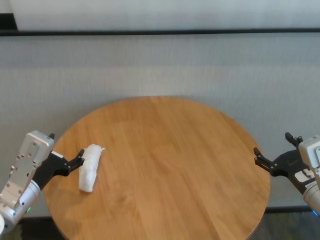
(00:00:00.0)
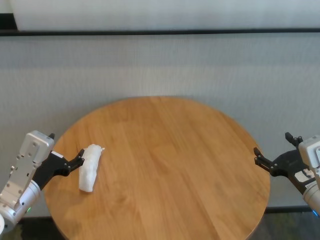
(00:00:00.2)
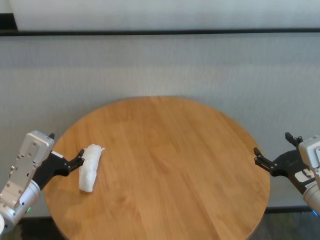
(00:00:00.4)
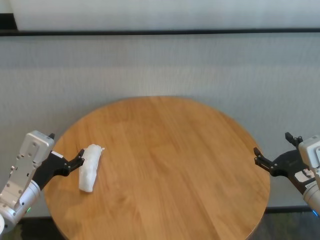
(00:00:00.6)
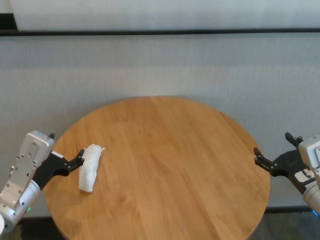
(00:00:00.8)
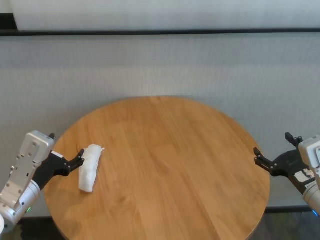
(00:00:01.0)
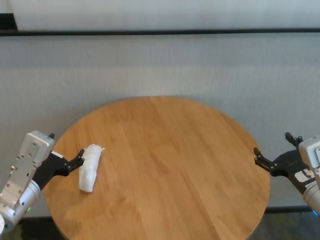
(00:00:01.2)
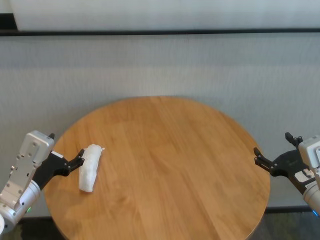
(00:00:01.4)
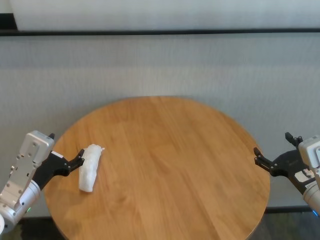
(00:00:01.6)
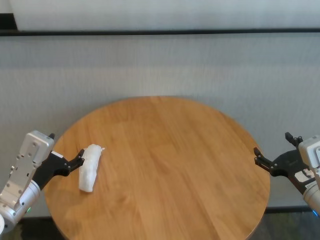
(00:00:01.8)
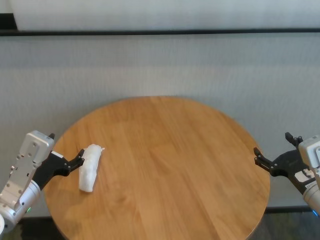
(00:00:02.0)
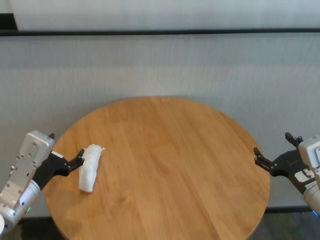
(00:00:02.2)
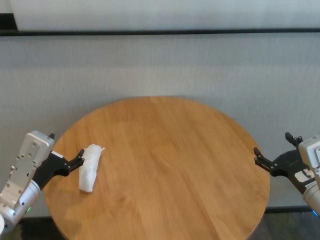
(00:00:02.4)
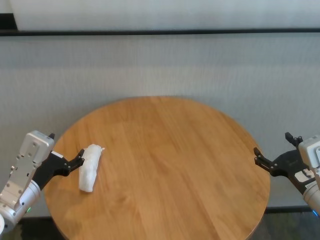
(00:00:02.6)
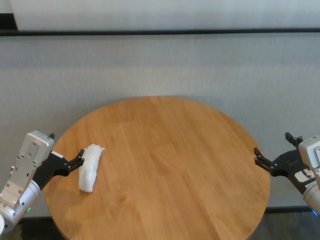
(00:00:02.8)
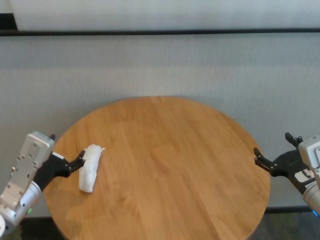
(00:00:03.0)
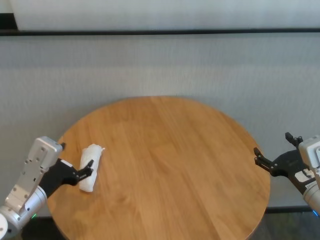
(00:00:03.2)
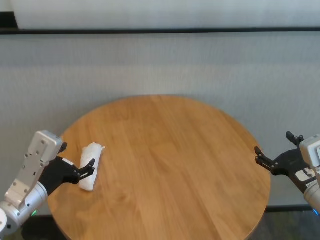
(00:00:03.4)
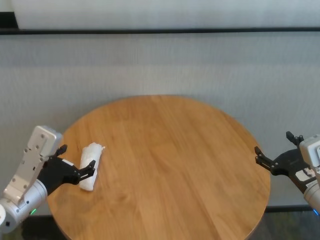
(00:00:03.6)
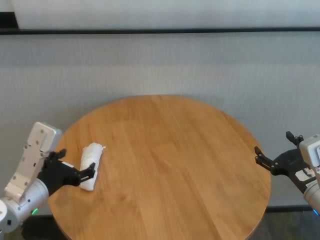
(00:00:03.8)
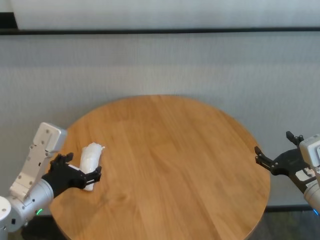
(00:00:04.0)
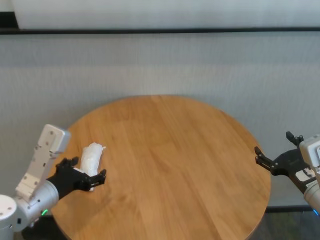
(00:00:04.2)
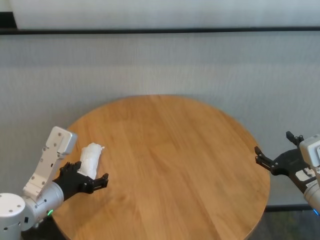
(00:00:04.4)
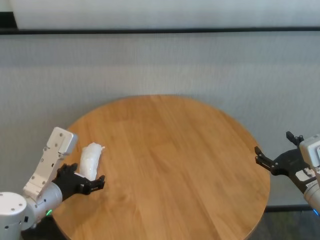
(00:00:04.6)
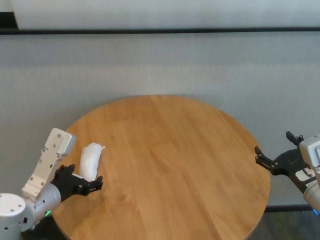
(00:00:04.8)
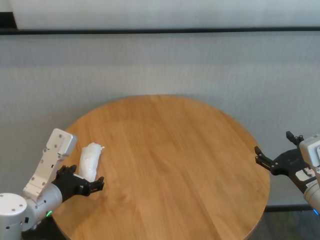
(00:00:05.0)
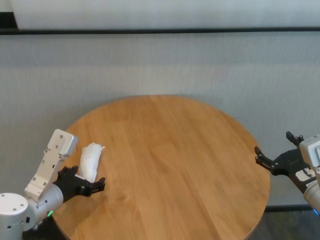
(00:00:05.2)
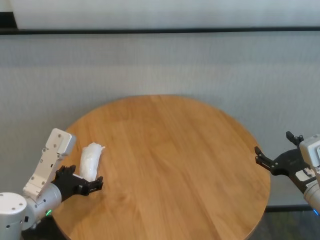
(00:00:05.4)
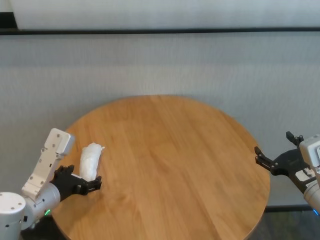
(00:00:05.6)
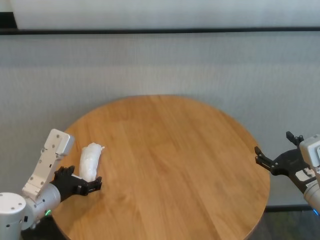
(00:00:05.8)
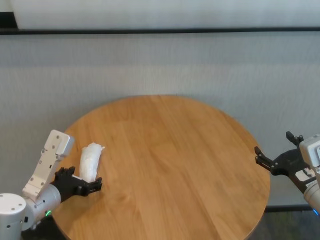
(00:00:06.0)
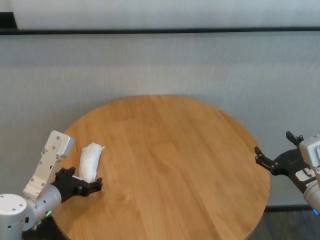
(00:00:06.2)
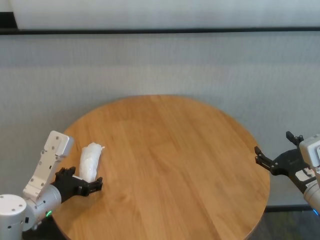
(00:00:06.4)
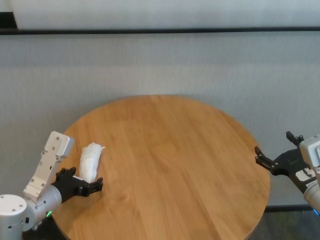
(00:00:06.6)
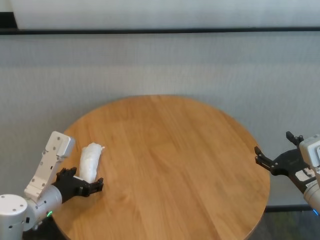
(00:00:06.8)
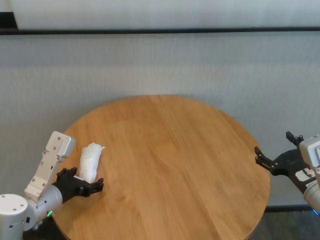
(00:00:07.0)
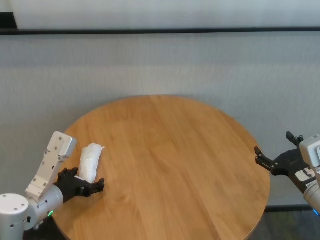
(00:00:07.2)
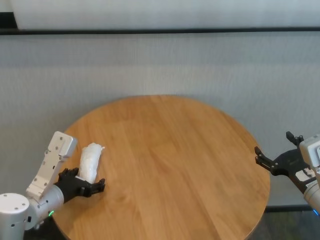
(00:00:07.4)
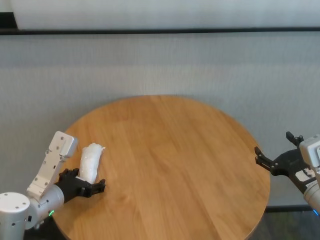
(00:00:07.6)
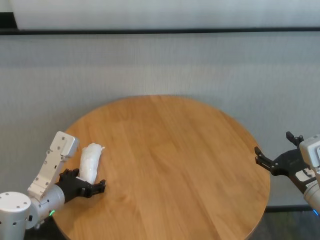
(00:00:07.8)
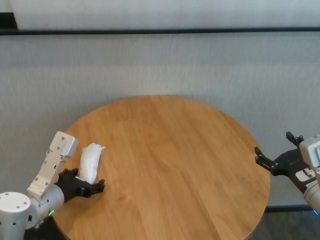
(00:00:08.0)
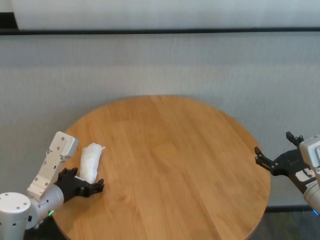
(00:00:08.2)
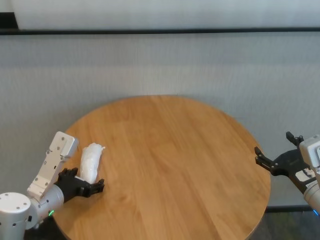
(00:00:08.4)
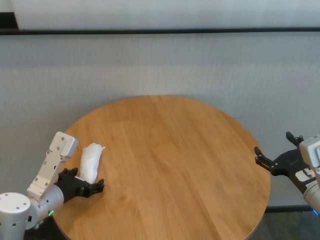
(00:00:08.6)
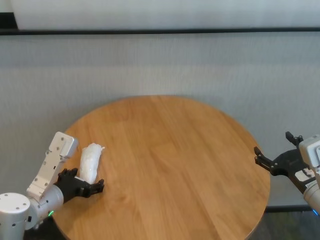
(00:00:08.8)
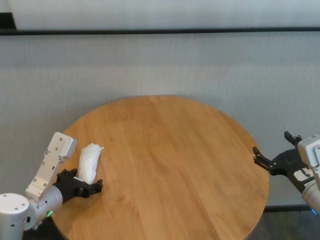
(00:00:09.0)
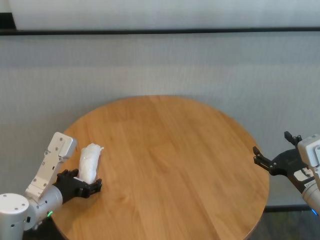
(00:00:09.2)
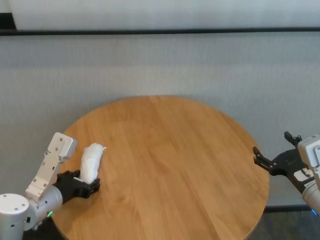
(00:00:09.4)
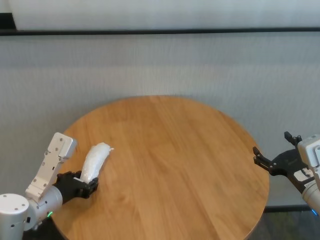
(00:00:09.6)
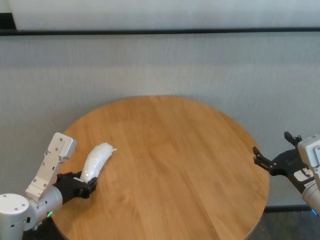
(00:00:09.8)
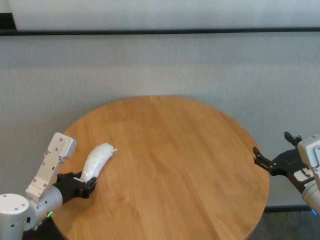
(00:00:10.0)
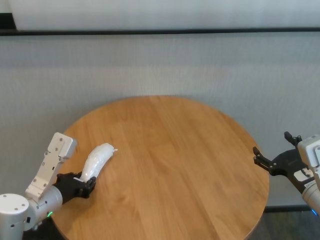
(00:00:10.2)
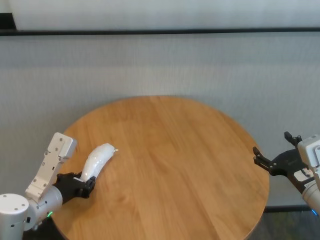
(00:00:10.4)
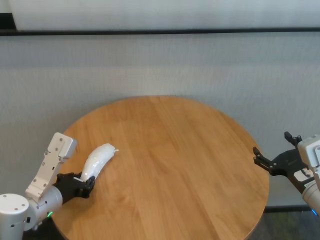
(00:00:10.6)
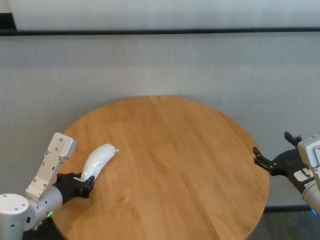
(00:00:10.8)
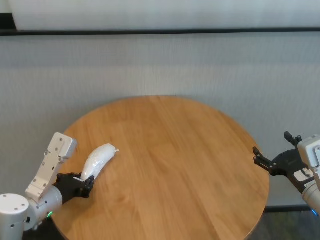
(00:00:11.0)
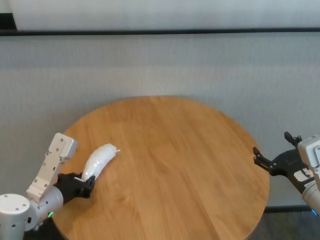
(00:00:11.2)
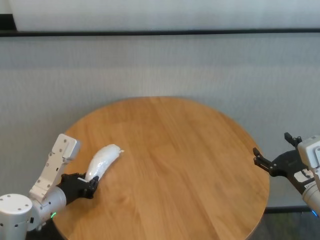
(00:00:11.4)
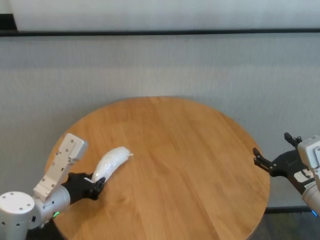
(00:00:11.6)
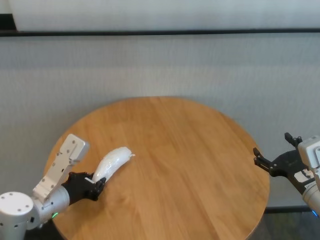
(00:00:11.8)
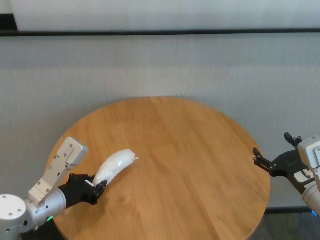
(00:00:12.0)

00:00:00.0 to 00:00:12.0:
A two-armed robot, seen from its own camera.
Task of the whole recording: One hand took the sandbag from the other hand and placed it on the table.
Step, 00:00:00.0 to 00:00:10.6: Grasp the paper ball with left gripper.

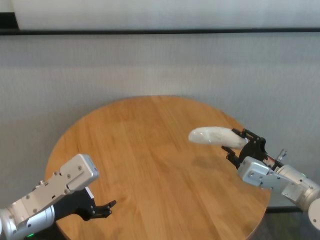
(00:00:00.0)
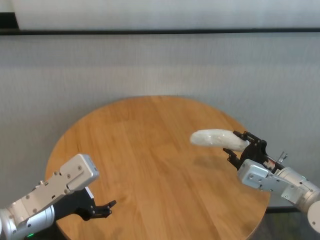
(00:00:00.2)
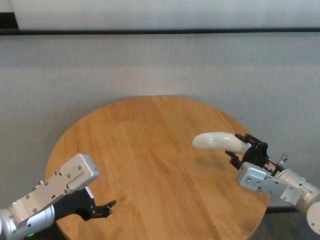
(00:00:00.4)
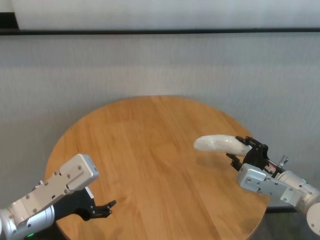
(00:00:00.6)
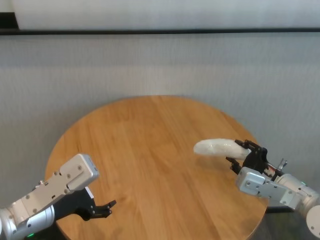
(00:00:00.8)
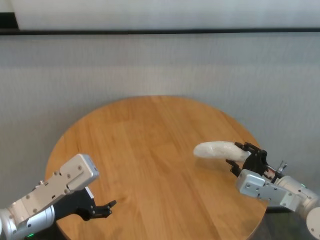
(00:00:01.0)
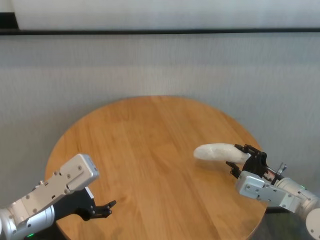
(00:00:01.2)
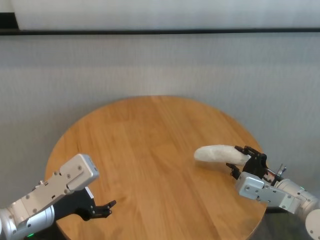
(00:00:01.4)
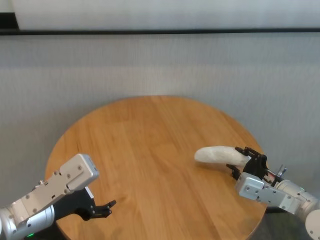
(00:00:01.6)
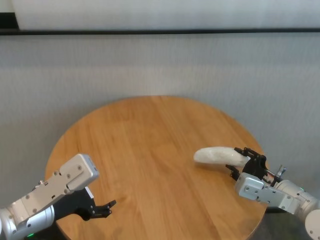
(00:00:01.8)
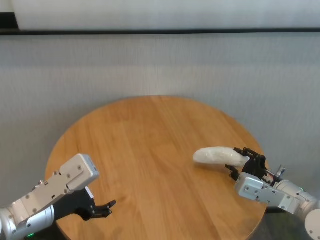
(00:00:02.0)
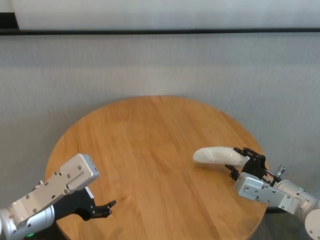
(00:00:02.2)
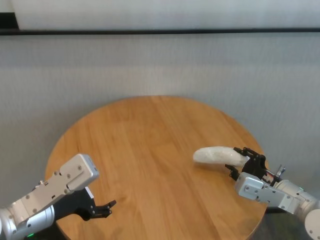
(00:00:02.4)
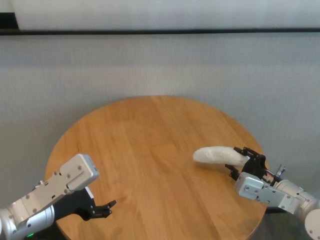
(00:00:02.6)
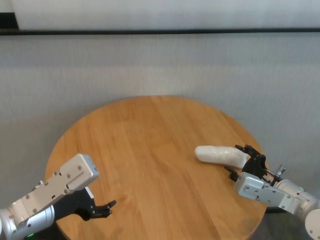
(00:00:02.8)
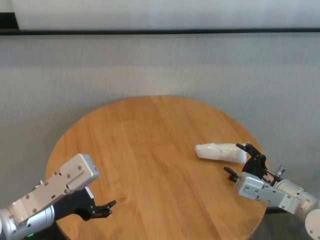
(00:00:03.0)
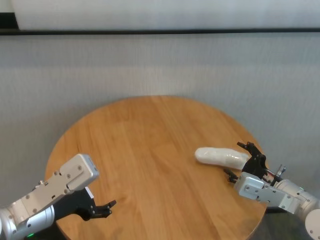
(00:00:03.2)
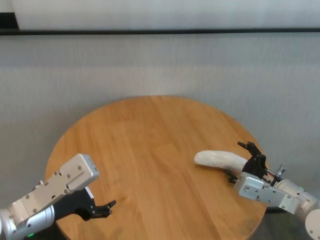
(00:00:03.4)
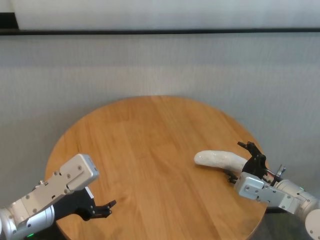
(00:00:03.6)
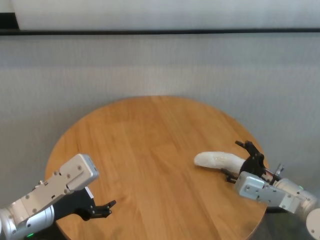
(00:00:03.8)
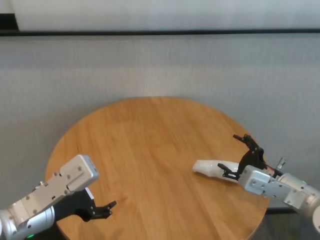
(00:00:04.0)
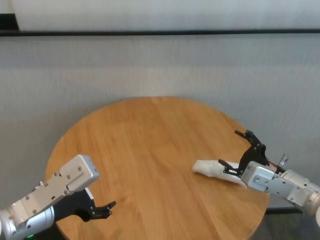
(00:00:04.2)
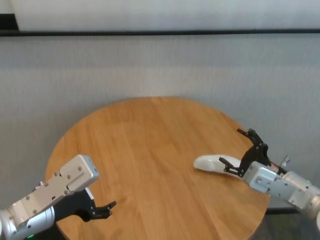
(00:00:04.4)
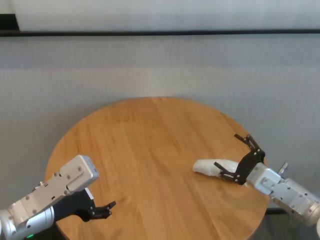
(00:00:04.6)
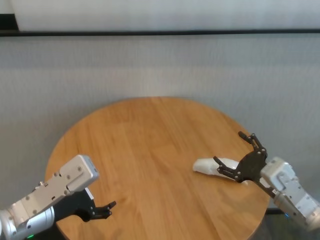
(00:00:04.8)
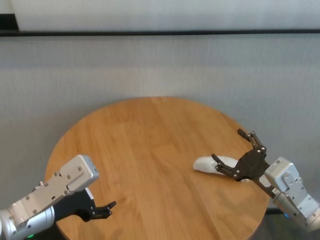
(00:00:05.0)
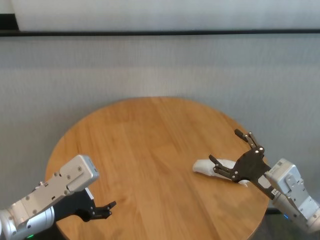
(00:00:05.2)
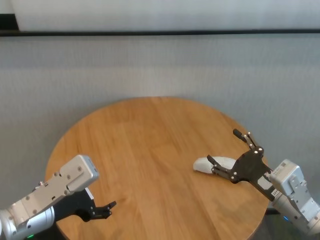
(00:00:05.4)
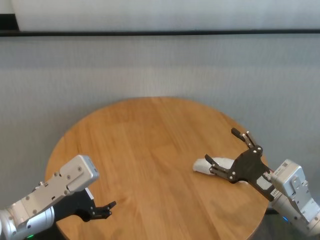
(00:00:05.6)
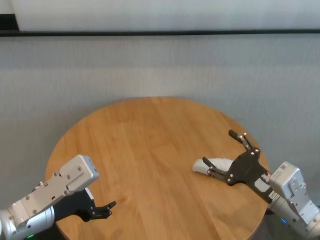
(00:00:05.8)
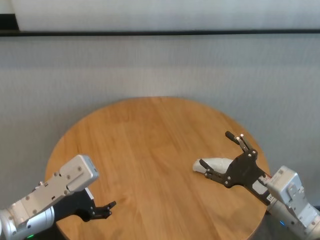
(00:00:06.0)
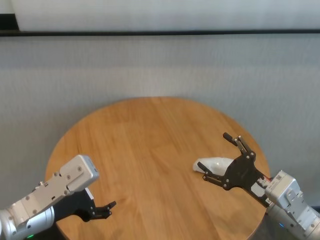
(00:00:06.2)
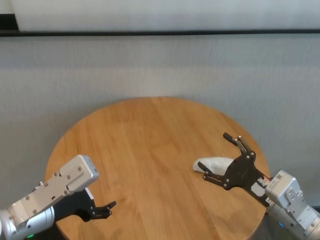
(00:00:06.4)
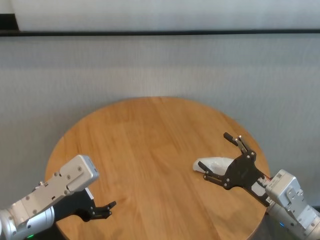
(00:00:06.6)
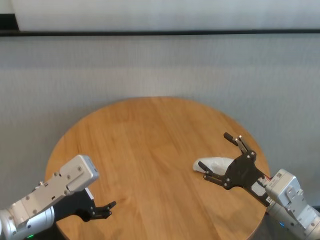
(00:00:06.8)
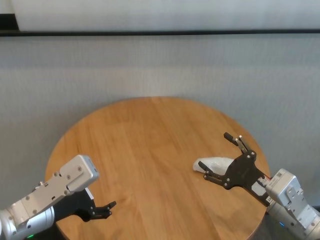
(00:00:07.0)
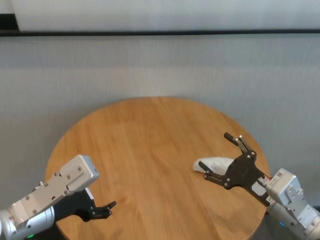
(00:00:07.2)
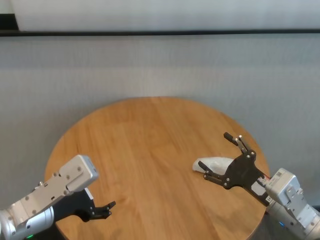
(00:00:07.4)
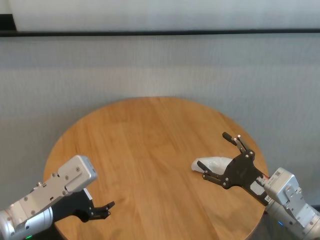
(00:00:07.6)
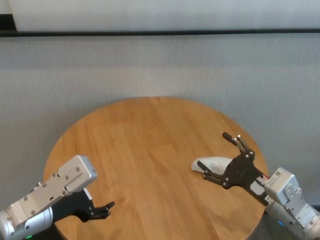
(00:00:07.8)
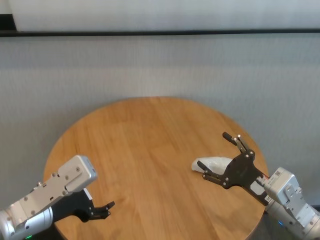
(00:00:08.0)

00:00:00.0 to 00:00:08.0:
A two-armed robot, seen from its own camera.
Task of the whole recording: One hand took the sandbag from the other hand and placed it on the table.
Step, 00:00:00.0 to 00:00:03.2: Place the paper ball on the table with right gripper.
